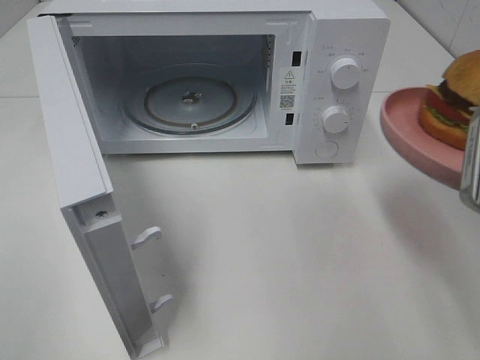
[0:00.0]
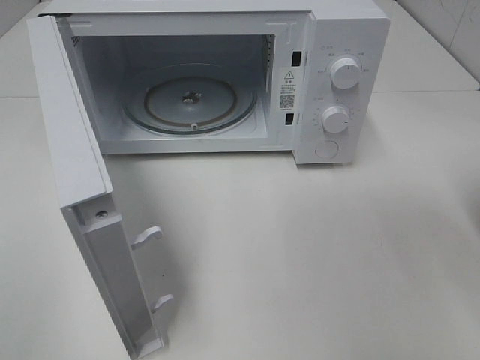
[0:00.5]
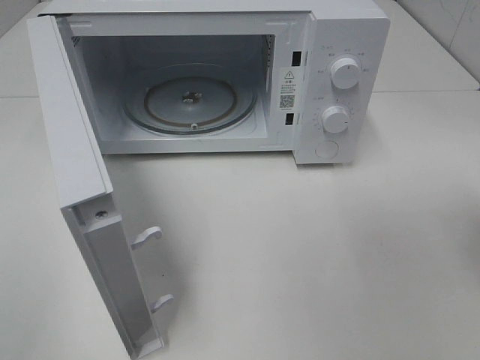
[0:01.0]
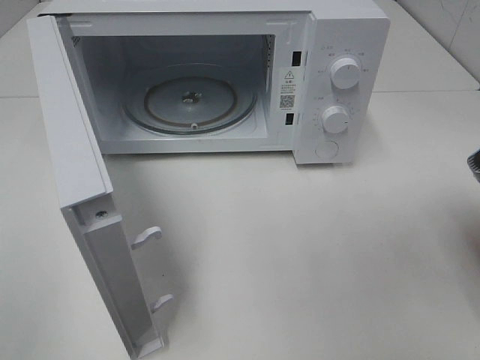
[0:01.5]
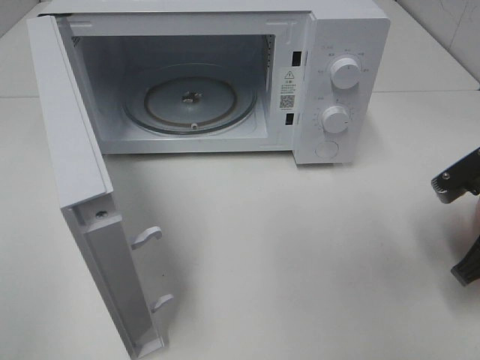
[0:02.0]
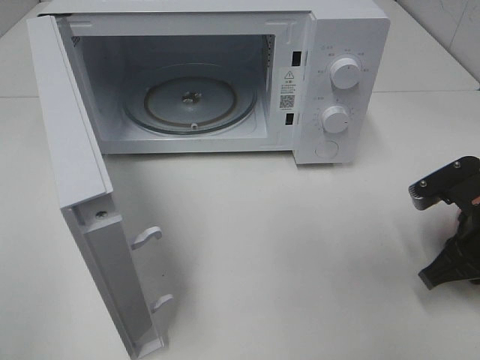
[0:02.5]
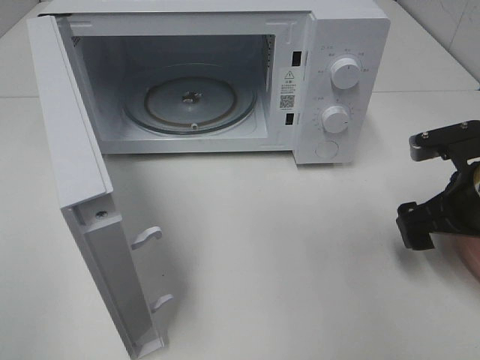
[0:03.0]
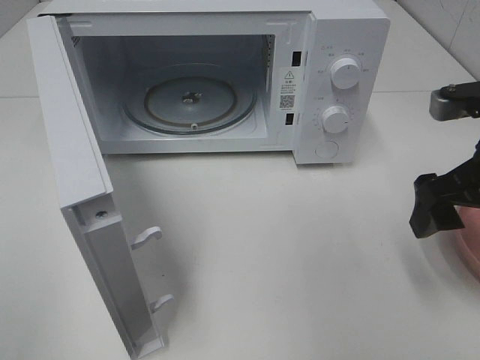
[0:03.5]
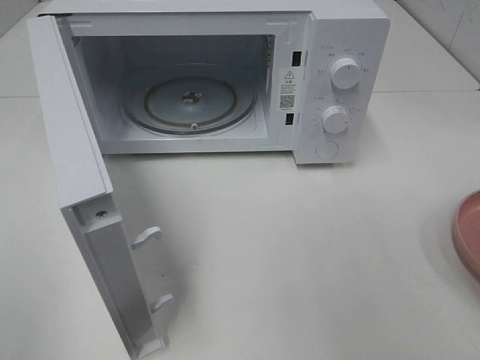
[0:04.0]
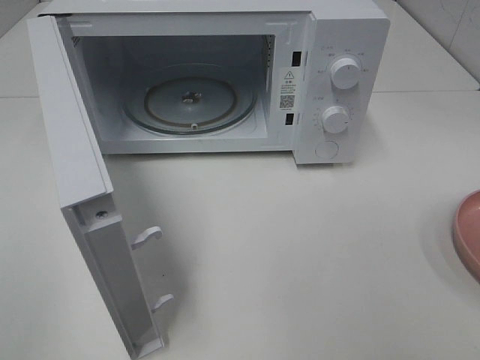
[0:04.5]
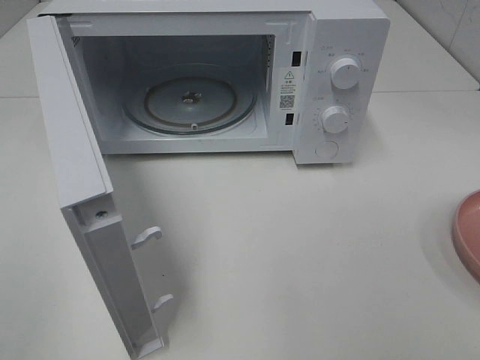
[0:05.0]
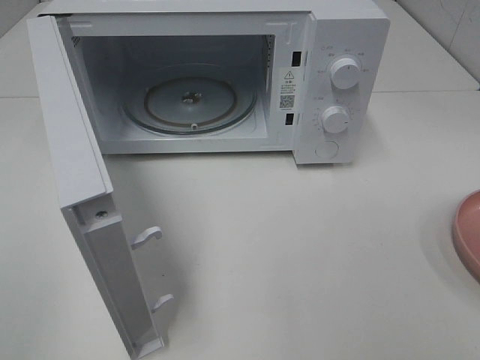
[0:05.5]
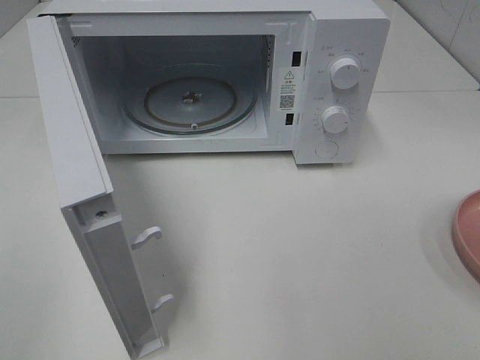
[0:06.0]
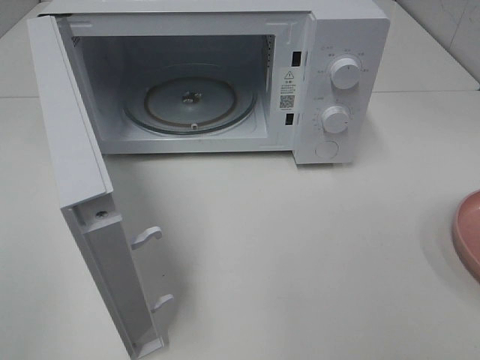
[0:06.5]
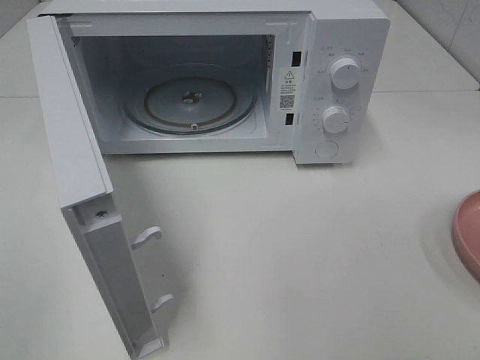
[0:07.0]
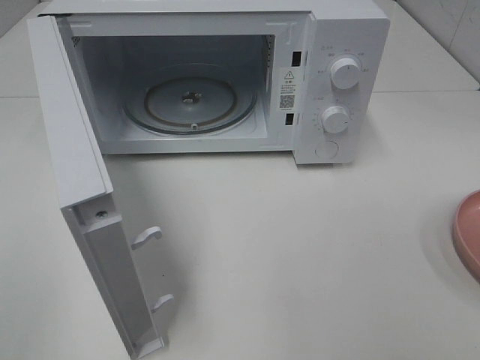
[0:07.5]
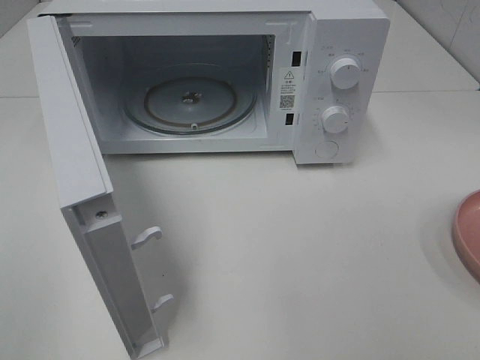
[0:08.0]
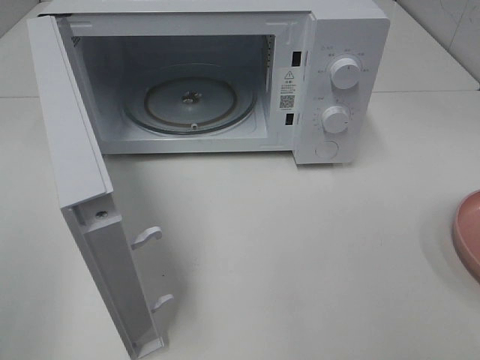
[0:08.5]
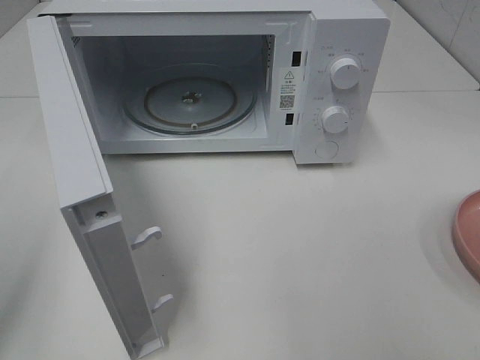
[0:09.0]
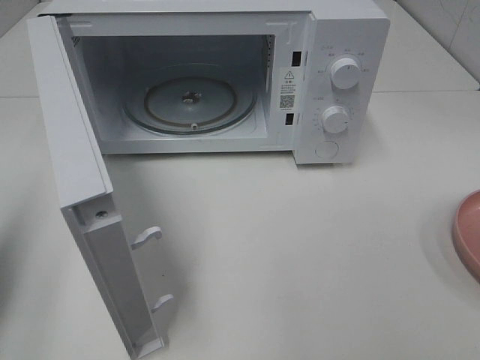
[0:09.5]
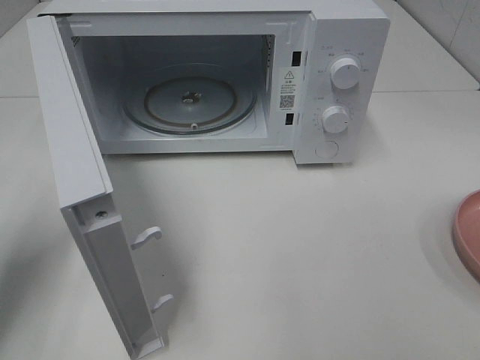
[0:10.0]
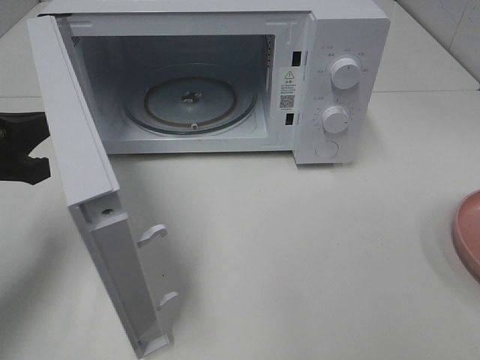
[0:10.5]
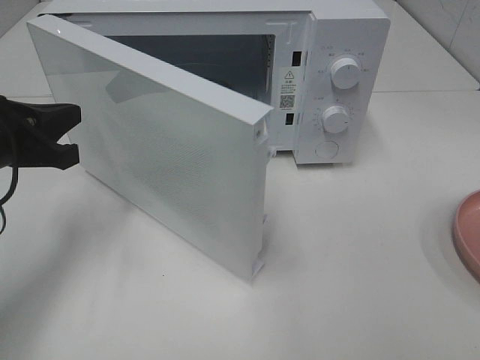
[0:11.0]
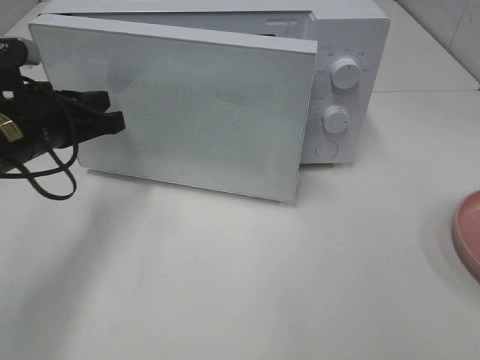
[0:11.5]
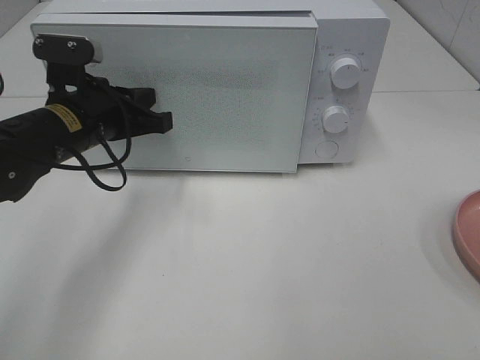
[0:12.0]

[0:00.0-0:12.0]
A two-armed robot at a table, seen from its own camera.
Task of the whole recording: Heat the burger.
Step, 0:00.0 to 0:02.5: Right hand: place the plate on the table.
0:00.0 to 0:02.0: The right gripper shifts approximately 15 cm downward and forward.
0:02.0 to 0:04.0: The right gripper goes some 10 cm upward, and opens.
0:08.0 to 0:10.0: The left gripper heads forward, covering about 20 cm, and closes.
0:10.0 to 0:12.0: The left gripper moves to the right and forward, roughly 20 cm.

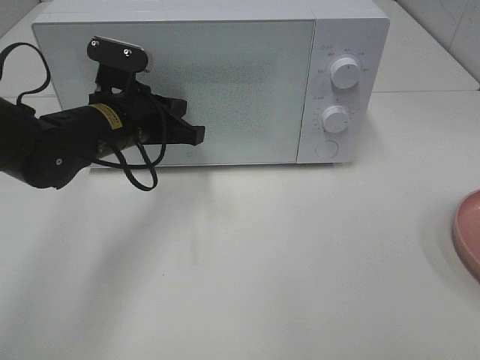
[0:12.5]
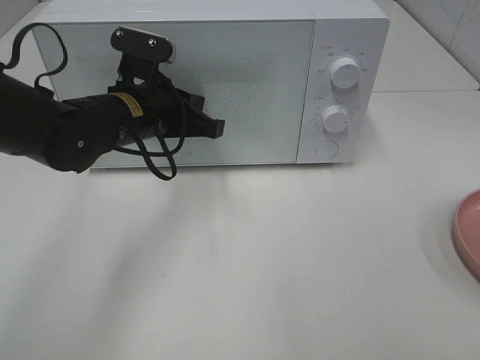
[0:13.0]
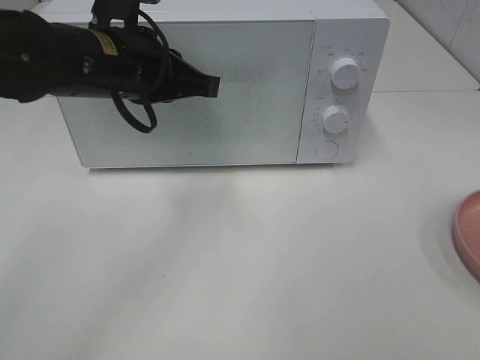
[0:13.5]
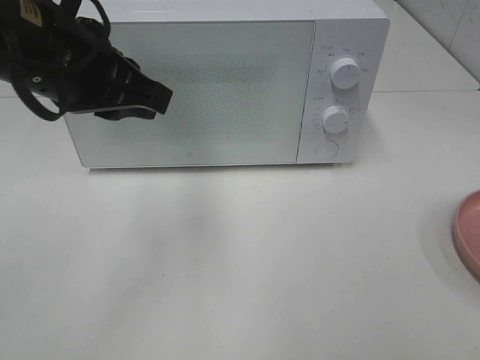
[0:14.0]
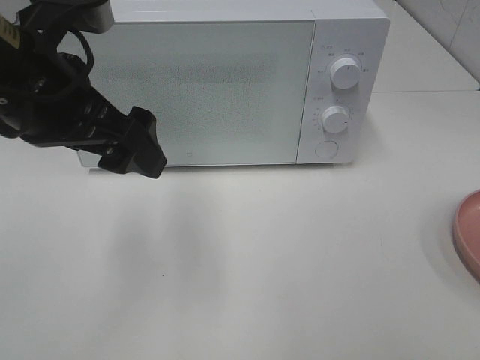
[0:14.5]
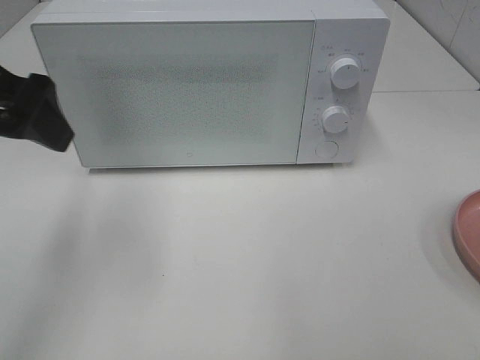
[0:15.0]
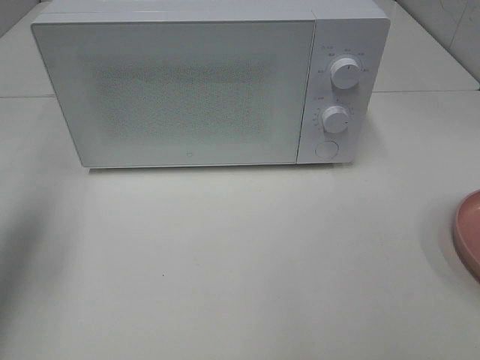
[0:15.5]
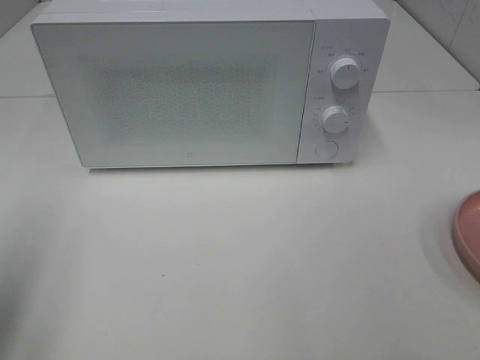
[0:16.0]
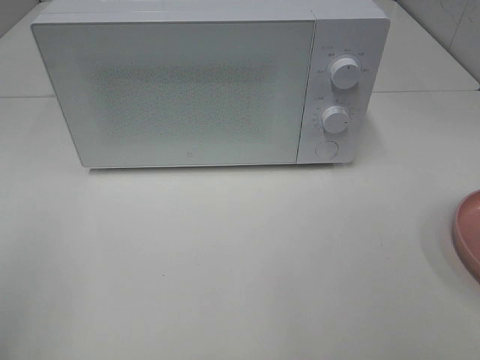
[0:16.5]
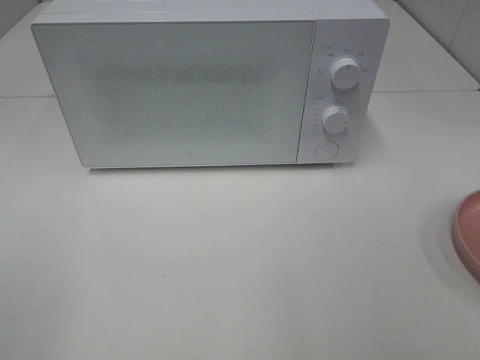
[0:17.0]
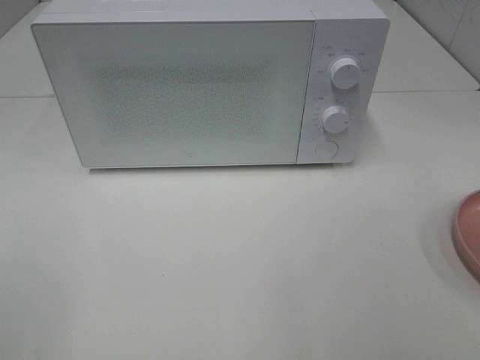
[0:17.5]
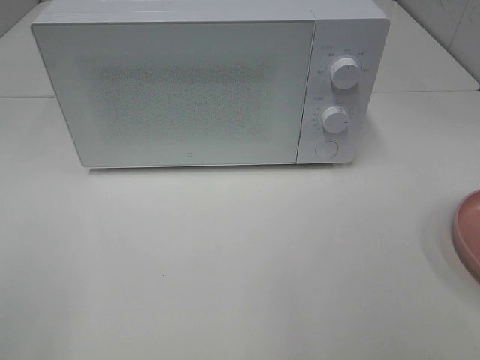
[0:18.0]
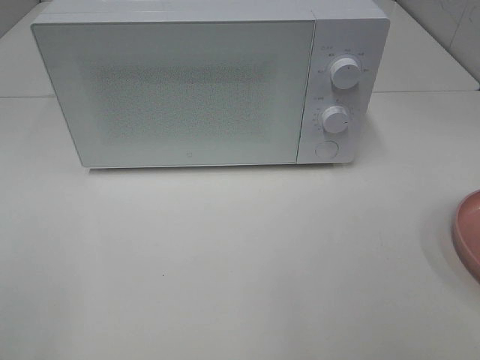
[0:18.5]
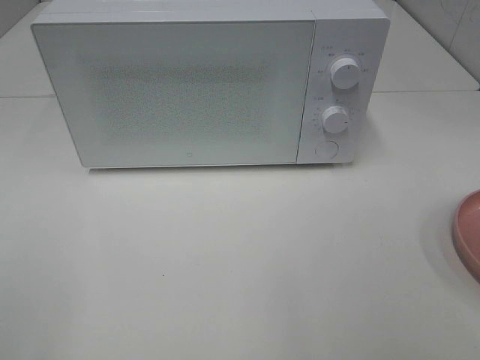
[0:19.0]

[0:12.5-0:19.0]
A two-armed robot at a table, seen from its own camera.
Task of the whole recording: Heat the burger.
0:12.5 to 0:14.5: The left gripper goes some 15 cm upward and backward, and opens its fingers.
0:14.5 to 0:17.0: The left gripper moves backward and to the left, approximately 30 cm.
0:17.0 to 0:19.0: The two grippers keep their place.

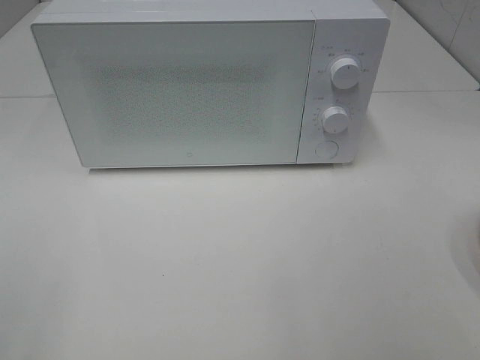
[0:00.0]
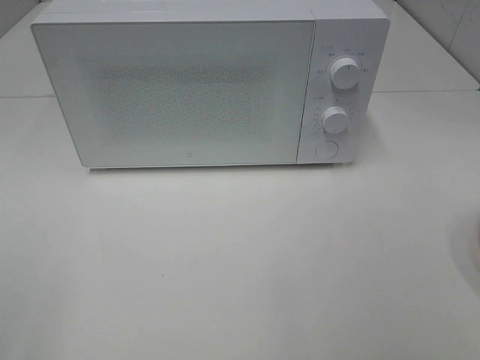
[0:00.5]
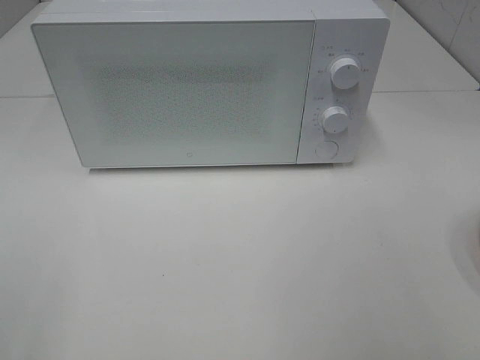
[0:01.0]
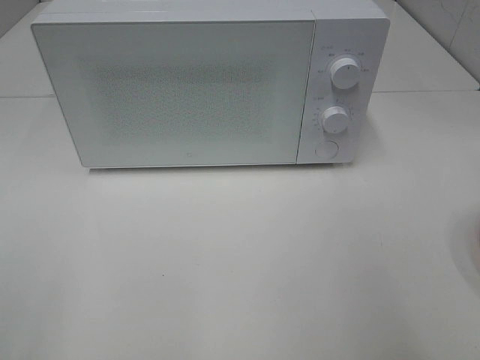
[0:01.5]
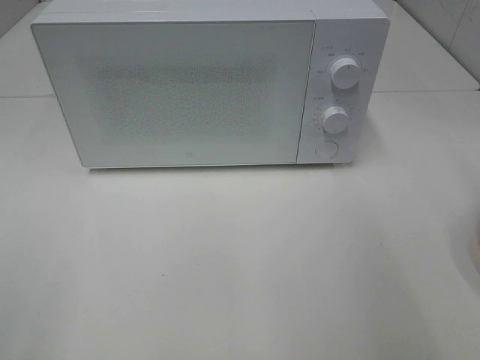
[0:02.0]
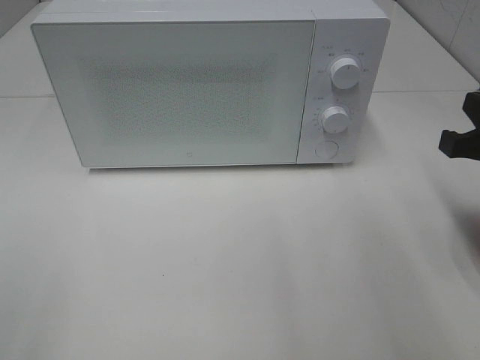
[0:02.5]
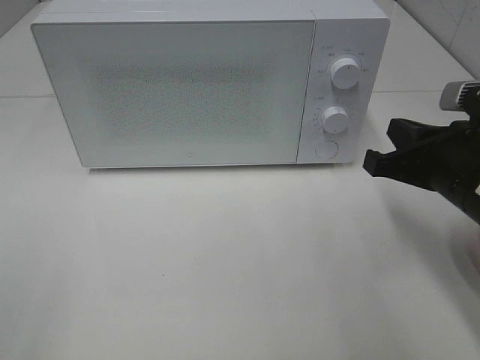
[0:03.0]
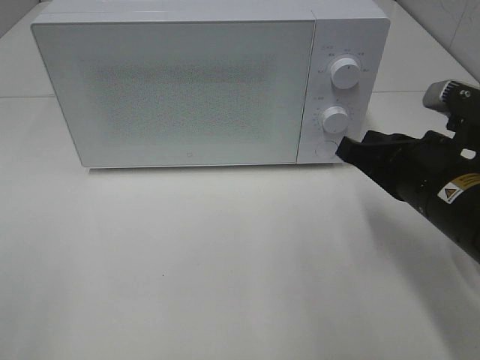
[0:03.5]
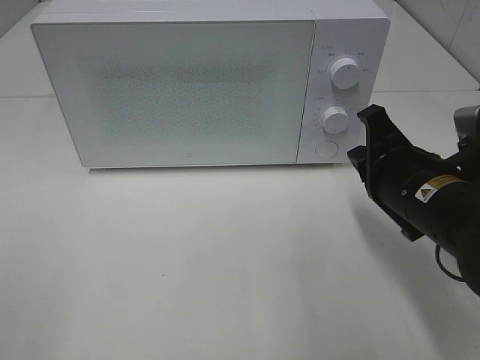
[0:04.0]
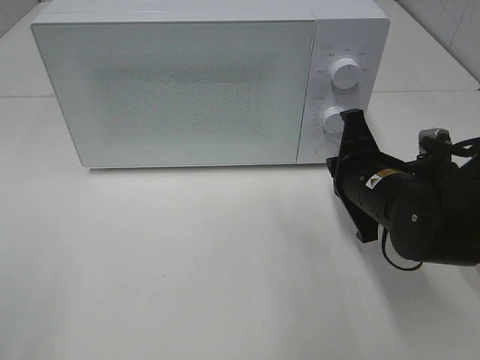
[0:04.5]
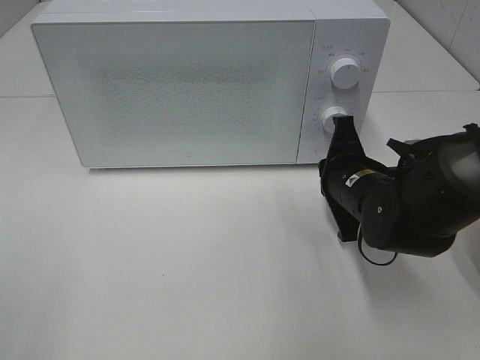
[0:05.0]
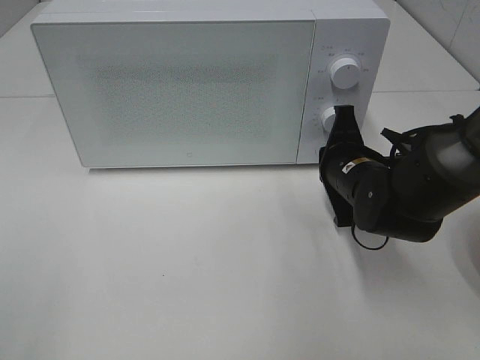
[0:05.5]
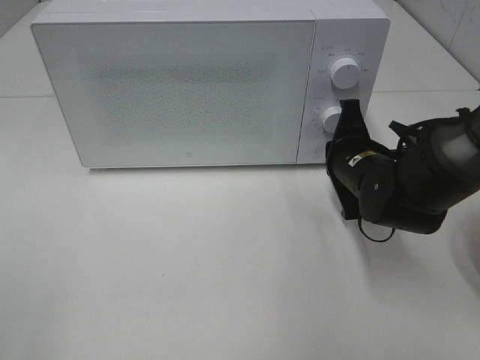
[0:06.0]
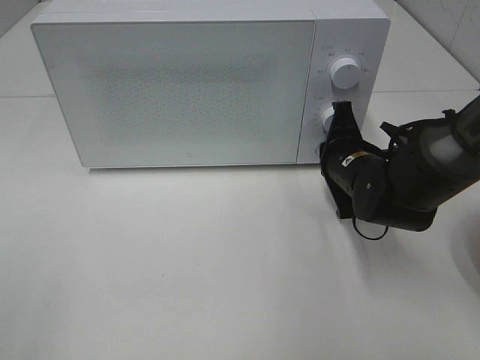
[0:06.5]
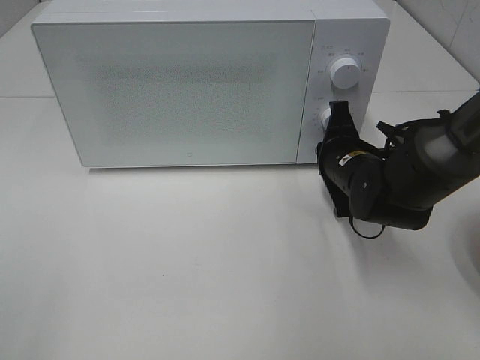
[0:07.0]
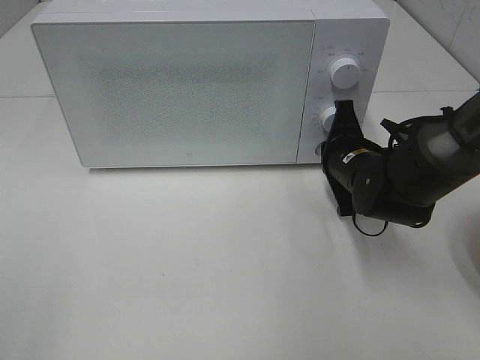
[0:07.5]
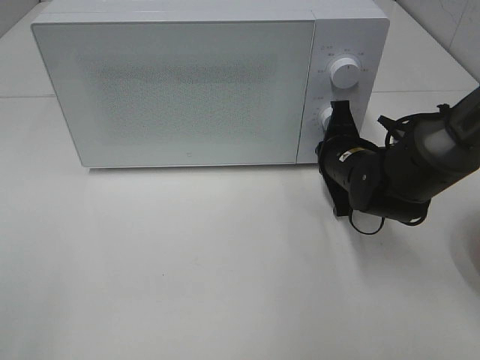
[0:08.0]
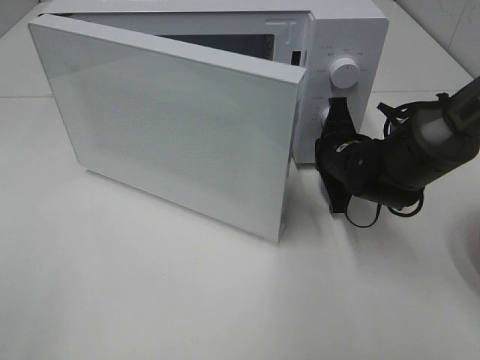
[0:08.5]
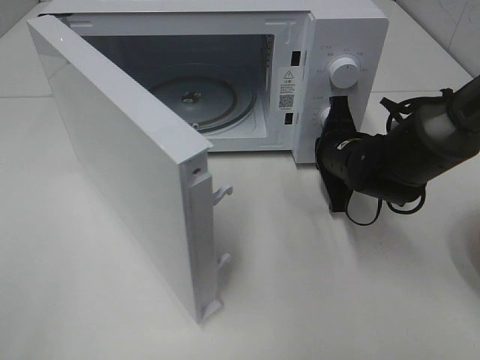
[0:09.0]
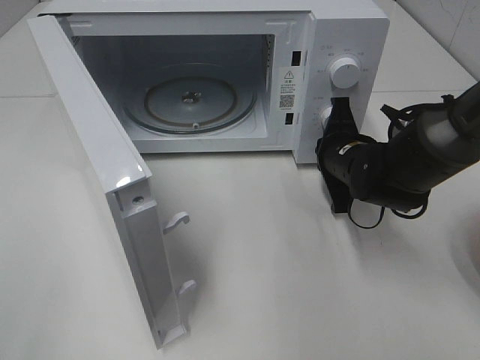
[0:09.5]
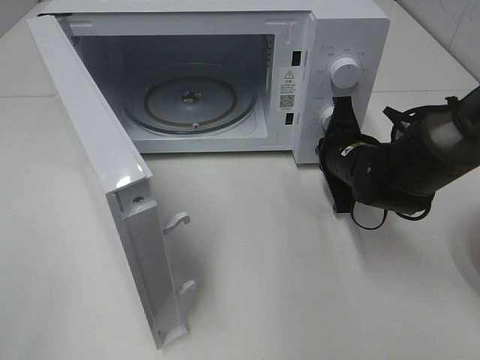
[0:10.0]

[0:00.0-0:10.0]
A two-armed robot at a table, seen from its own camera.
Task of the whole recording: Heat the burger.
0:02.0 to 0:04.0: The right gripper travels downward, to the left and forward by about 20 cm.
0:04.0 to 0:06.0: The right gripper shifts roughly 10 cm forward and downward.
0:06.0 to 0:08.0: The grippers make only small movements.
